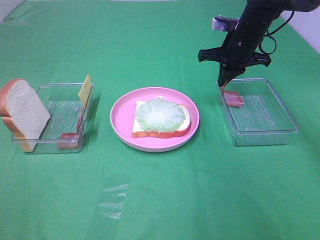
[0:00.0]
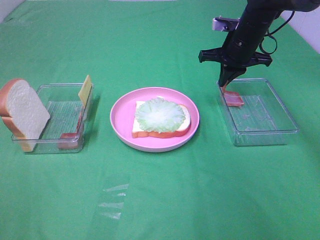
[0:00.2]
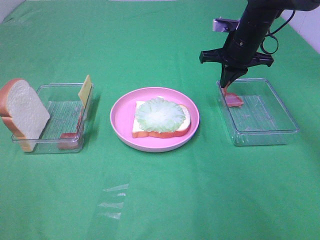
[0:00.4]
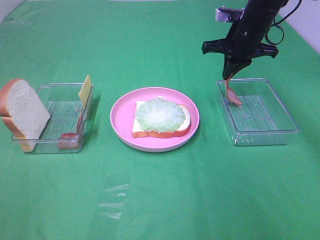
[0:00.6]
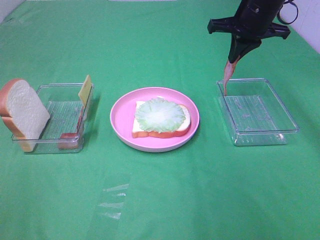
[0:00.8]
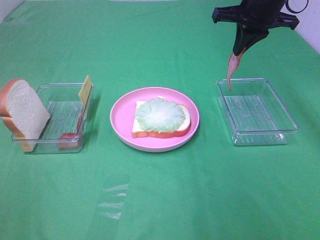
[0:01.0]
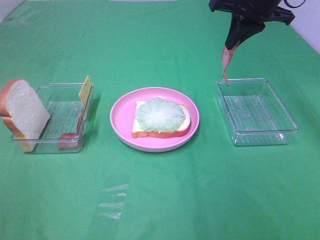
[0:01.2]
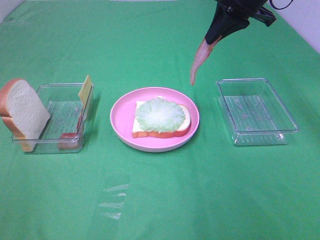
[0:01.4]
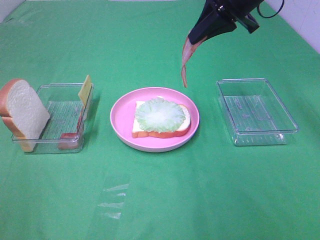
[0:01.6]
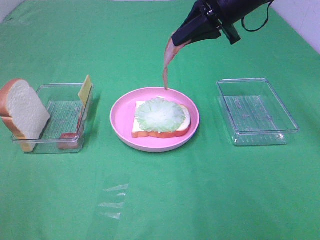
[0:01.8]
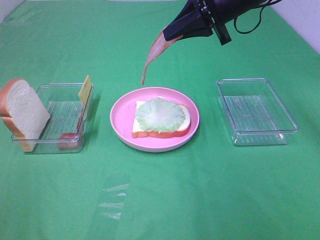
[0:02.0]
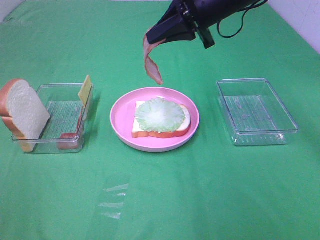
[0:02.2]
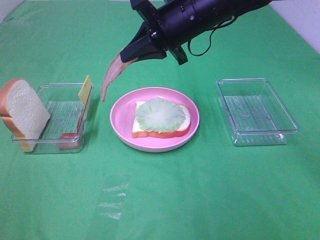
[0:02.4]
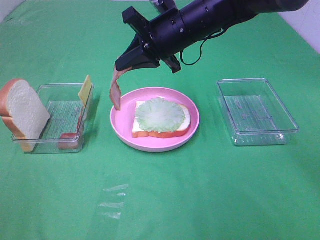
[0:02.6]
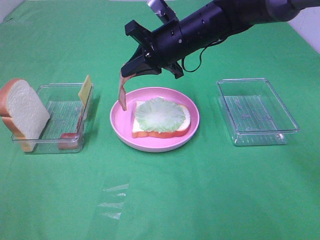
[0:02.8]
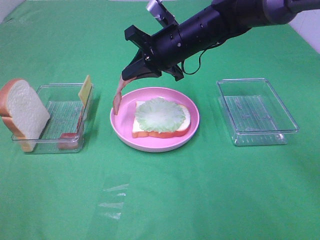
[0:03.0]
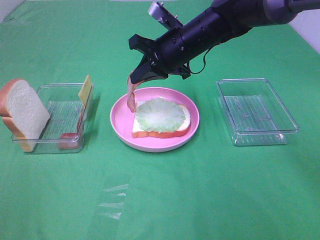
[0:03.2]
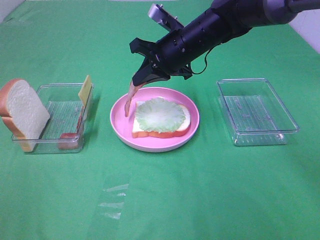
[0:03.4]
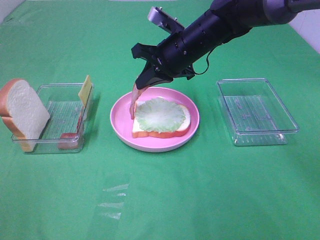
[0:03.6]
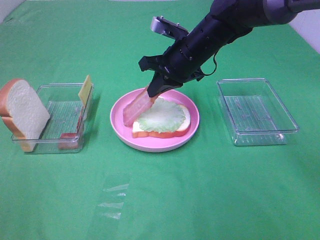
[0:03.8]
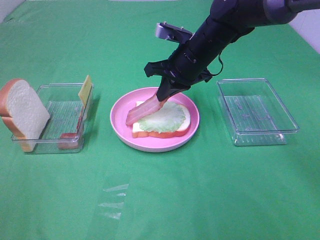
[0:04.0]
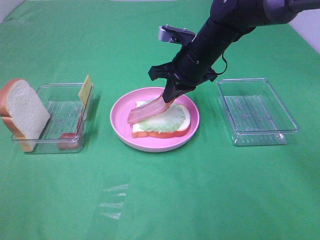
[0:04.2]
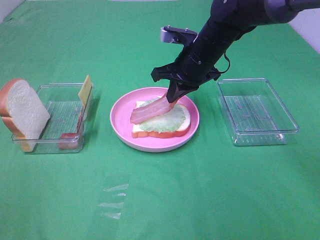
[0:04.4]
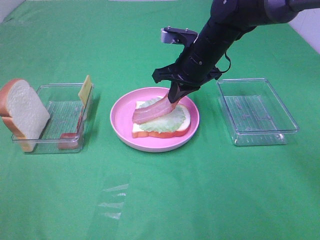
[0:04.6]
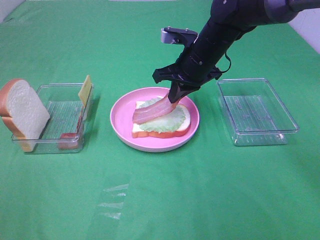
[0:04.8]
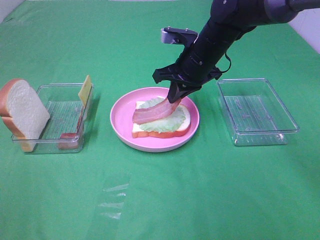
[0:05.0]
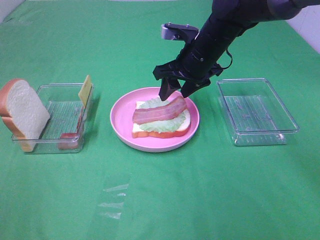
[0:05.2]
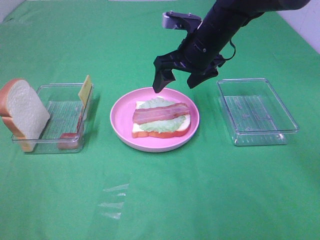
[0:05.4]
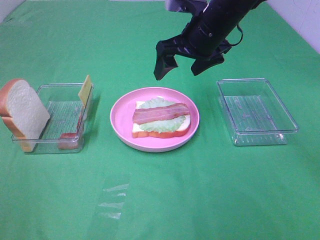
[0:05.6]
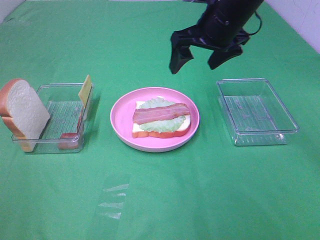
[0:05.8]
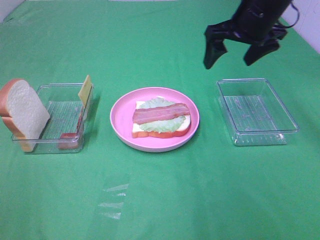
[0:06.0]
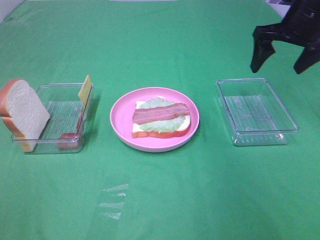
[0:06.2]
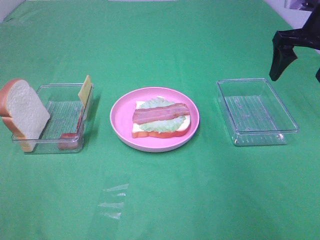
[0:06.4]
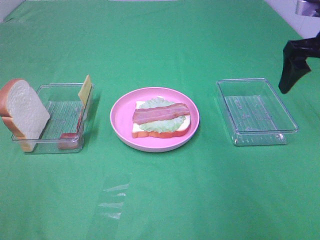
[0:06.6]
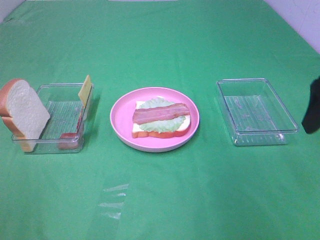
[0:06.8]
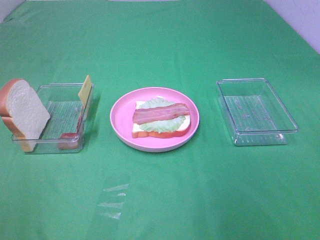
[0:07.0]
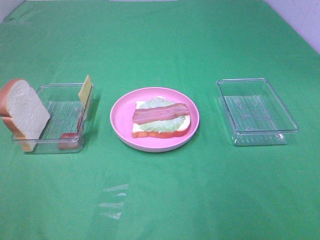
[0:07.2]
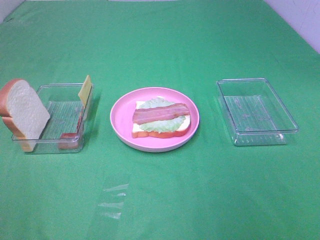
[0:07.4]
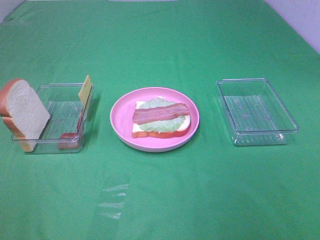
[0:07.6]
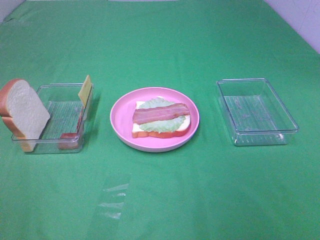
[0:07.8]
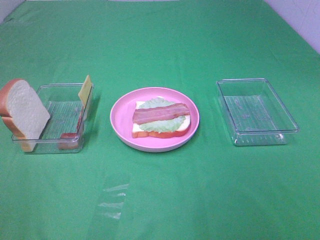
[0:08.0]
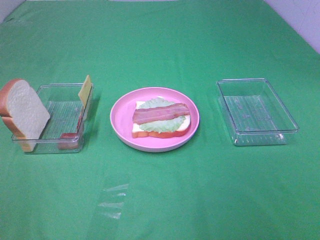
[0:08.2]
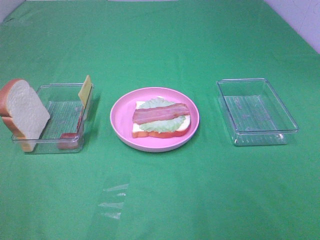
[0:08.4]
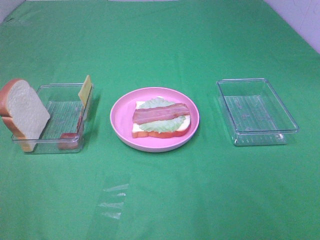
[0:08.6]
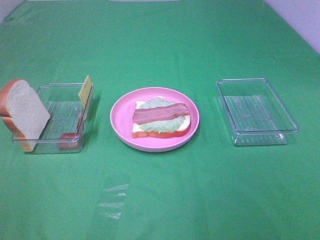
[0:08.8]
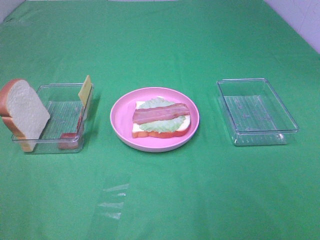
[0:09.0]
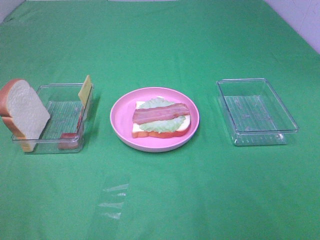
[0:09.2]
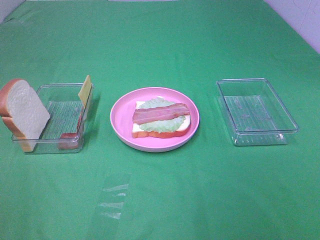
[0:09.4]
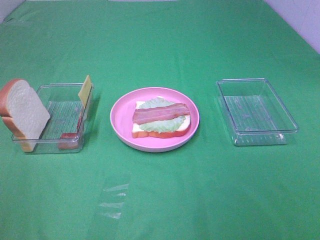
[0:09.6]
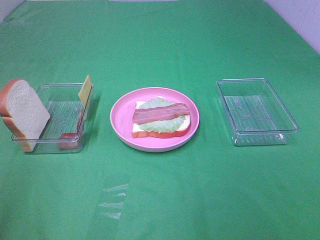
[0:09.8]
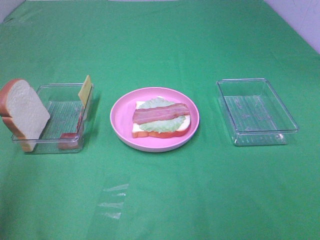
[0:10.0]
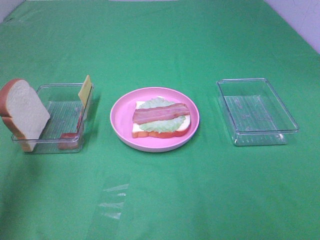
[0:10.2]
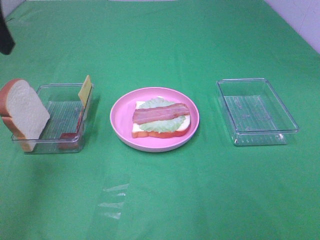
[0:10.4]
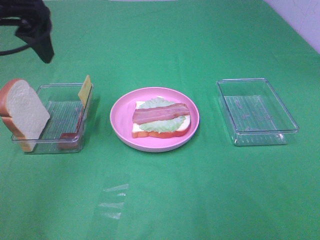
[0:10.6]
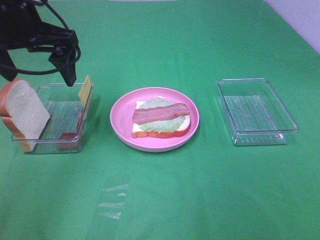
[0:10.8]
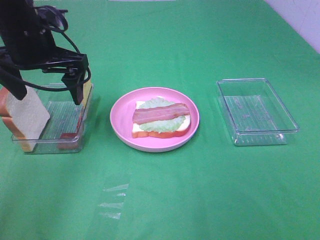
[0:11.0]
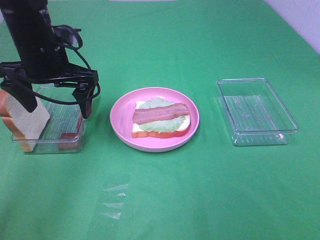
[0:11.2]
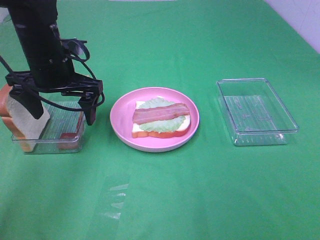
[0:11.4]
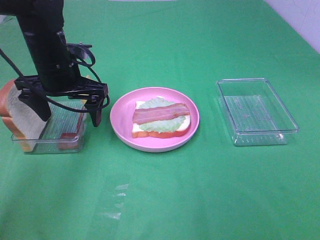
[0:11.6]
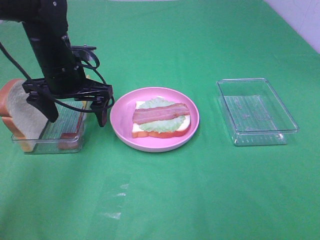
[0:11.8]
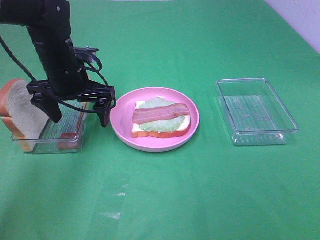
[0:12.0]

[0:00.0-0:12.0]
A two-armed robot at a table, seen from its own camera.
Task of the whole recording: Make sandwiches.
Step, 0:00.6 to 0:05.2: Right hand:place bacon on lettuce slice.
0:00.0 to 0:01.6: The right gripper goes some 15 cm upward and backward.
0:01.6 to 0:03.0: The right gripper moves downward and to the left, roughly 15 cm.
0:04.4 to 0:06.0: The right gripper is displaced to the right and upward by approximately 15 cm, and opens its fingers.
0:06.0 to 0:07.6: The right gripper goes some 40 cm backward.
0:09.0 to 0:10.4: The left gripper heads forward, covering roughly 30 cm.
0:10.4 to 0:12.0: The left gripper goes about 25 cm downward, forward and to the right.

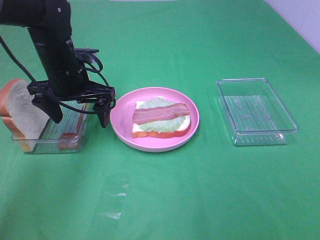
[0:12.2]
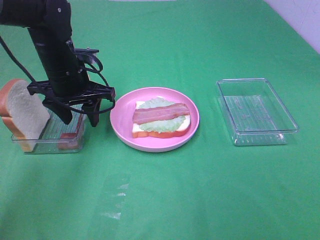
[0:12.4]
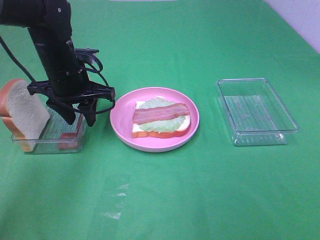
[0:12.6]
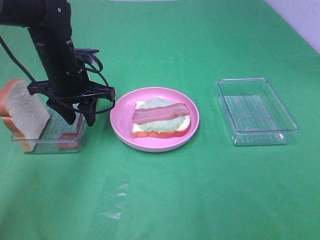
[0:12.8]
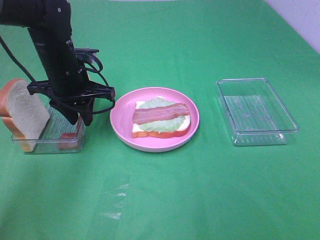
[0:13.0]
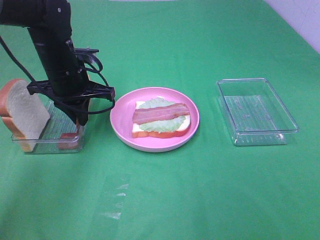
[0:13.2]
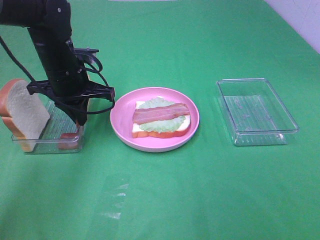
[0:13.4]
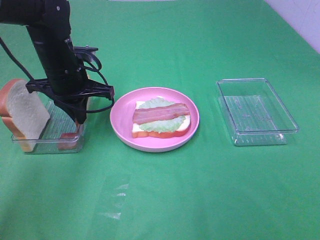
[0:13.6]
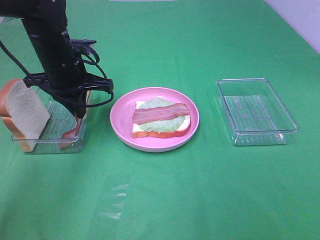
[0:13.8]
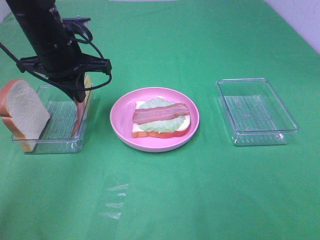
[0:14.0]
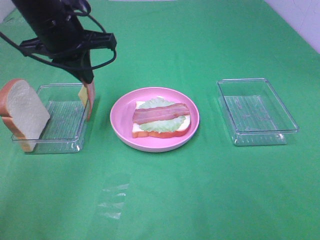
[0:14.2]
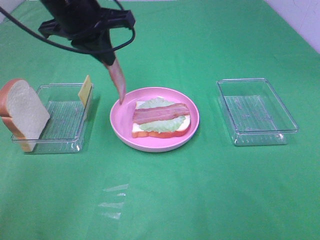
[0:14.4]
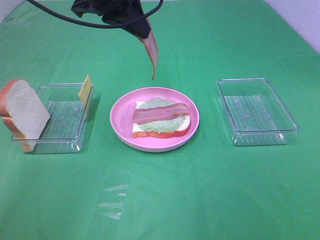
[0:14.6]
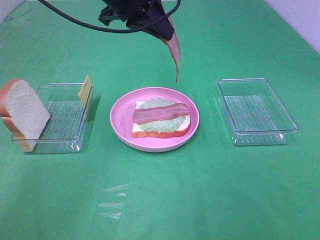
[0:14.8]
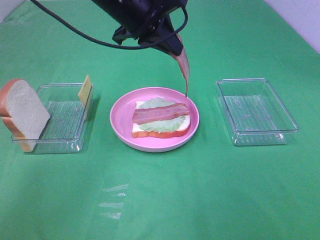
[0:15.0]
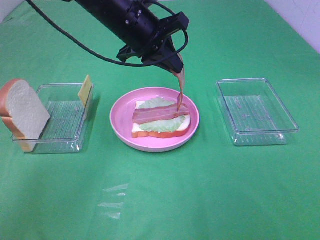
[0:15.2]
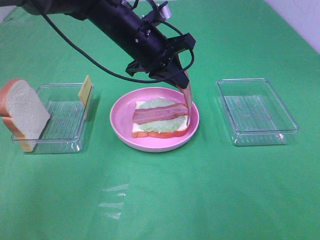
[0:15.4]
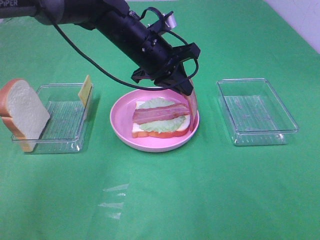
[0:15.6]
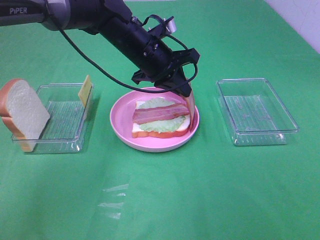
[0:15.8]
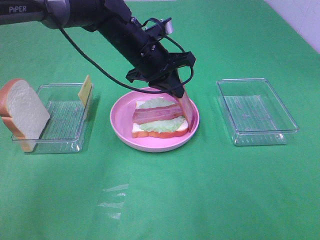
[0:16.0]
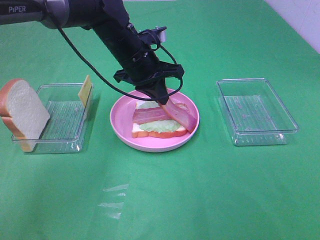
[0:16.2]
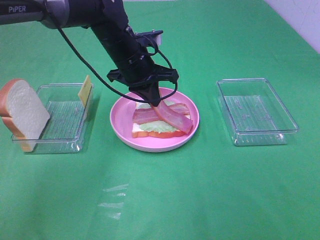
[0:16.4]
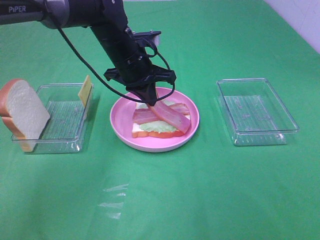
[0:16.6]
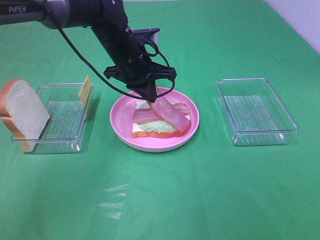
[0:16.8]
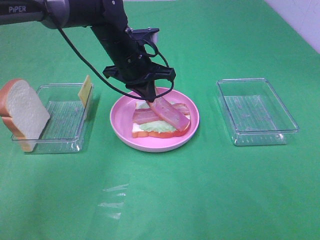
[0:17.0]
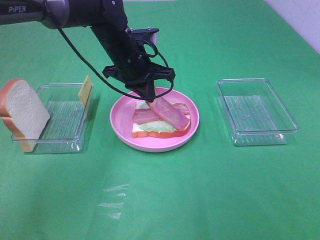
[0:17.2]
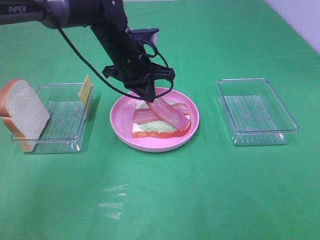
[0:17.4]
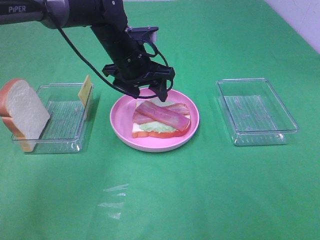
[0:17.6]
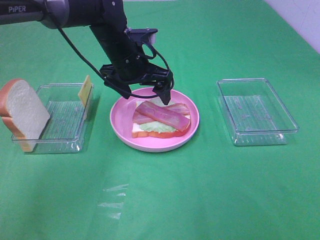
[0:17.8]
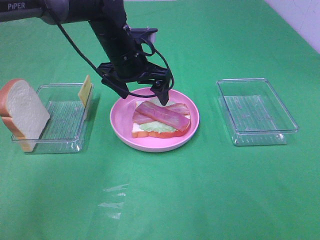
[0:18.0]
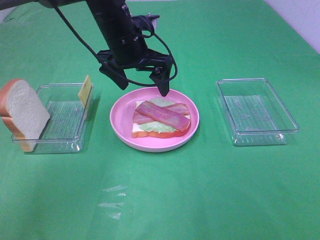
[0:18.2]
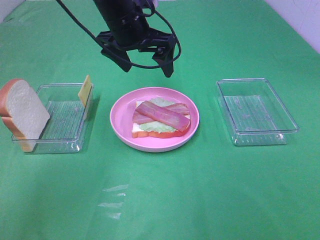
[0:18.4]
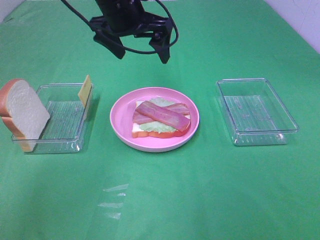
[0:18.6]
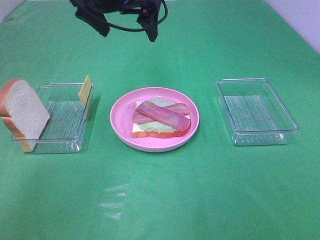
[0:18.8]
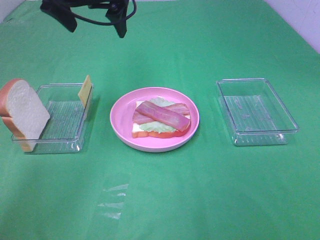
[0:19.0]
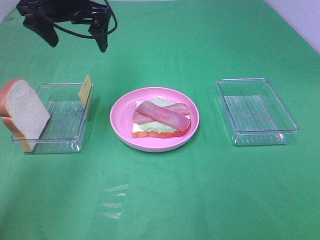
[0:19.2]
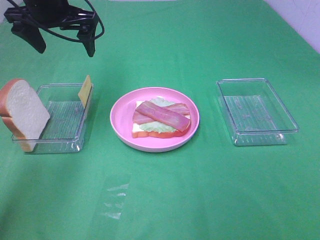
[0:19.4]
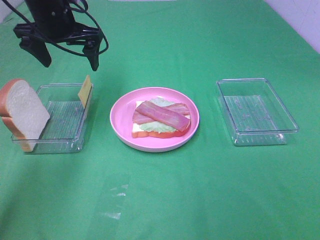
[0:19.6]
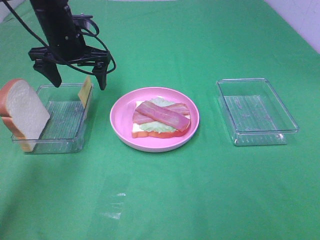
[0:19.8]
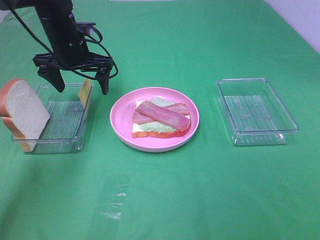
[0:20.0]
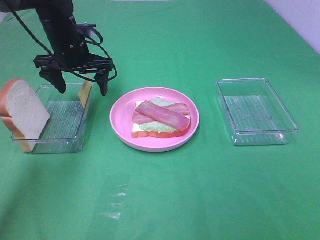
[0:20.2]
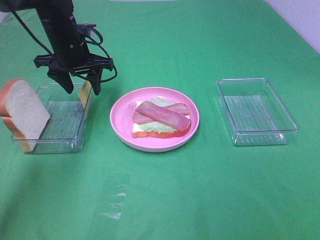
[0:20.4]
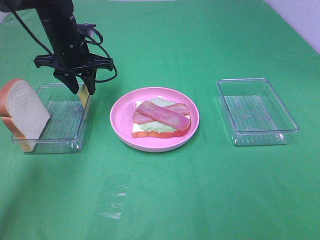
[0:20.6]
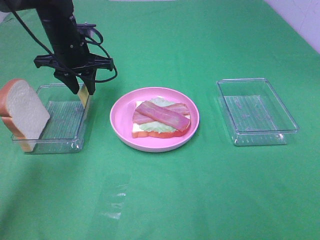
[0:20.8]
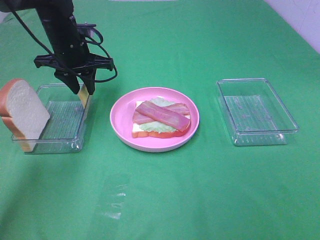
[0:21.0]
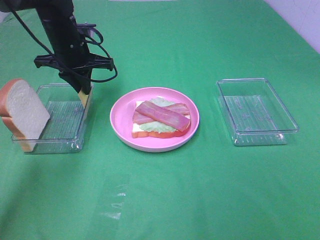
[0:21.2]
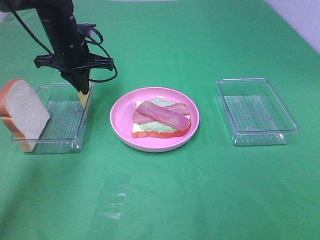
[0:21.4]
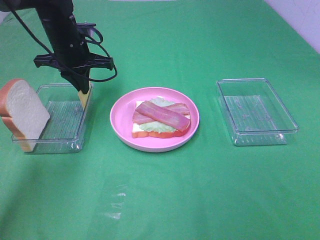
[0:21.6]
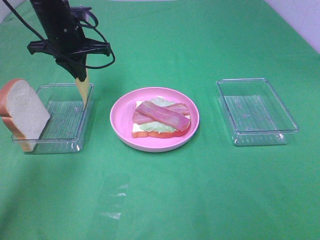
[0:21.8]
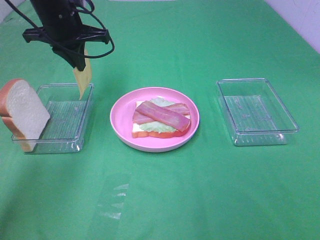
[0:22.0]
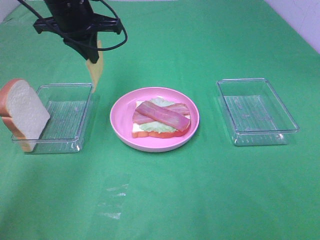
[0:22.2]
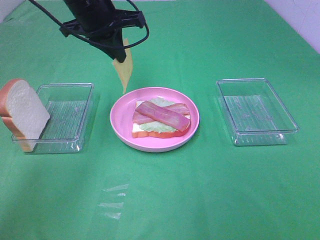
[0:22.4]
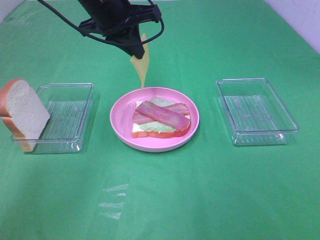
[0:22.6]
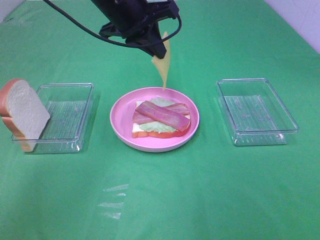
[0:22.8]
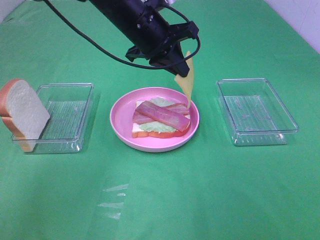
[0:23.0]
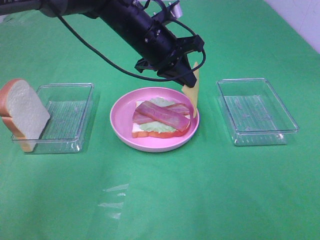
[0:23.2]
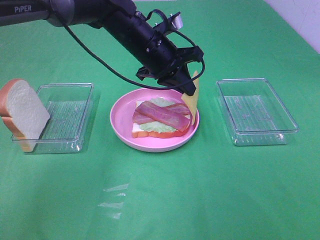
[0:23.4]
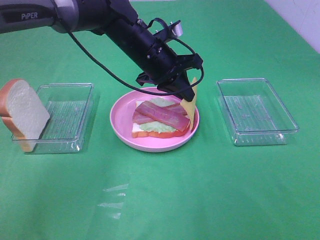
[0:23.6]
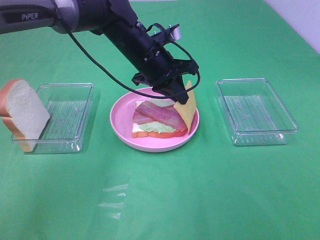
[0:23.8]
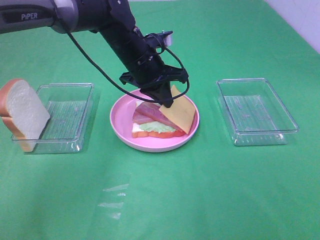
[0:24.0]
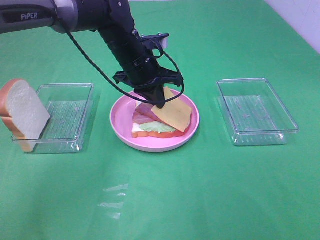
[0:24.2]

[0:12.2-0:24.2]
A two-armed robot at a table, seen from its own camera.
Task of the whole recording: Make sandwiches.
Step, 0:13.8 to 0:17.6: Left hand:place bacon on lettuce slice.
Step, 0:17.8 to 0:21.2: Left hand:grab the cheese slice.
0:12.2 to 0:13.8: The left gripper closes.
0:13.8 to 0:15.2: The left gripper heads to the right, covering some 10 cm, and reaches some 15 cm upward, then returns.
0:15.2 to 0:16.6: The left gripper is displaced downward by approximately 5 cm.
0:16.6 to 0:18.2: The left gripper opens up.
0:18.2 to 0:19.8: The left gripper heads to the left, covering some 10 cm.
0:19.8 to 0:21.2: The left gripper closes.
0:21.2 to 0:22.6: The left gripper moves upward and to the right, about 15 cm.
0:22.6 to 0:24.2: The left gripper is displaced downward by some 10 cm.
